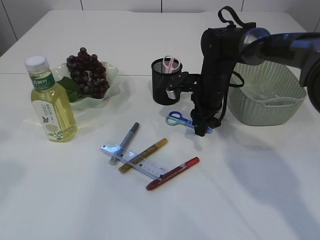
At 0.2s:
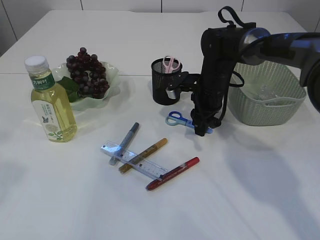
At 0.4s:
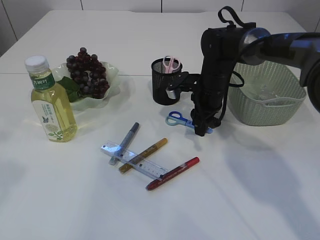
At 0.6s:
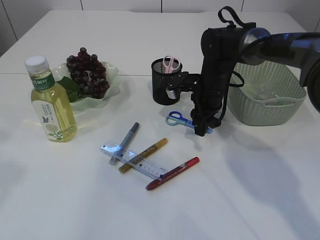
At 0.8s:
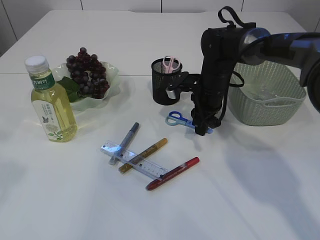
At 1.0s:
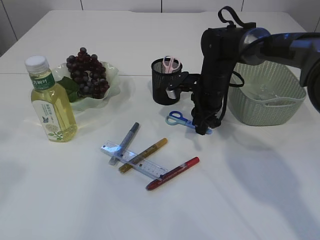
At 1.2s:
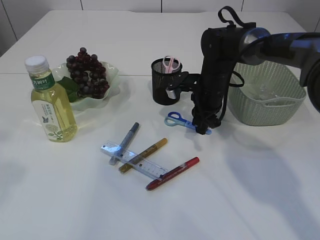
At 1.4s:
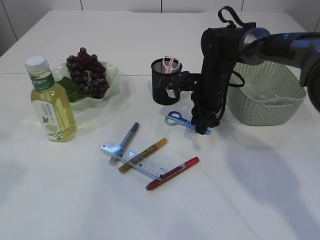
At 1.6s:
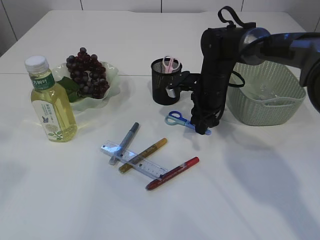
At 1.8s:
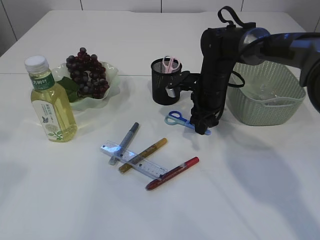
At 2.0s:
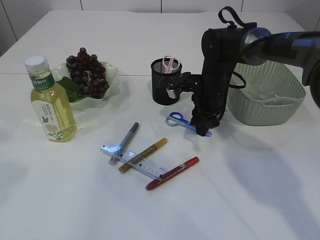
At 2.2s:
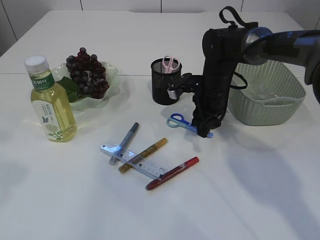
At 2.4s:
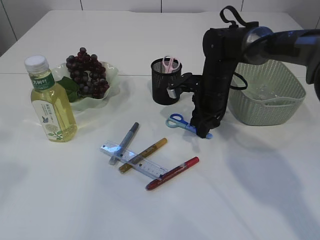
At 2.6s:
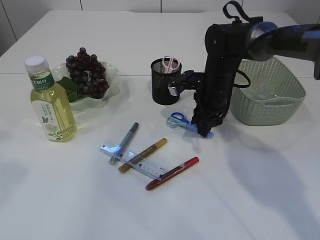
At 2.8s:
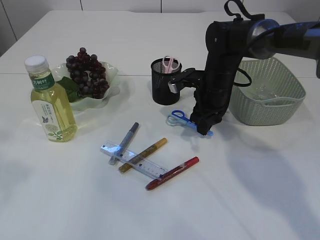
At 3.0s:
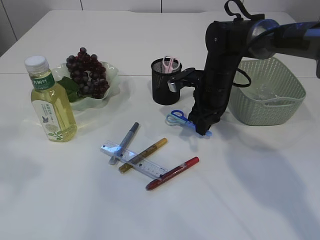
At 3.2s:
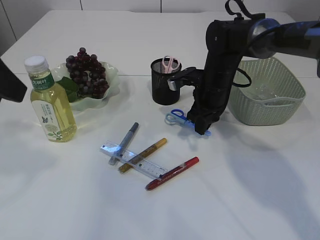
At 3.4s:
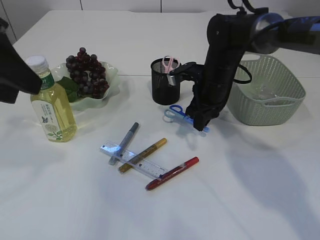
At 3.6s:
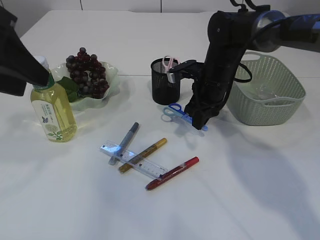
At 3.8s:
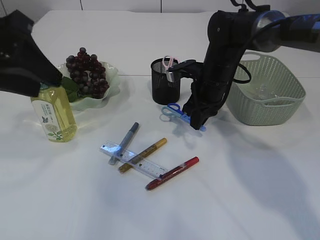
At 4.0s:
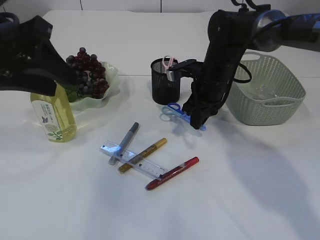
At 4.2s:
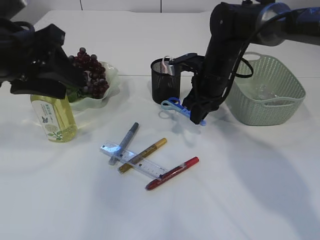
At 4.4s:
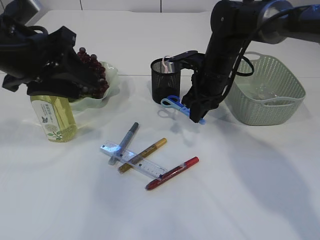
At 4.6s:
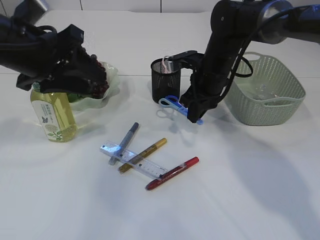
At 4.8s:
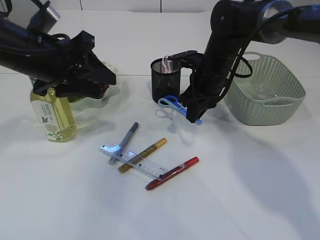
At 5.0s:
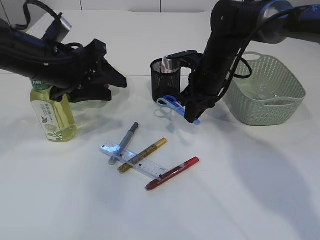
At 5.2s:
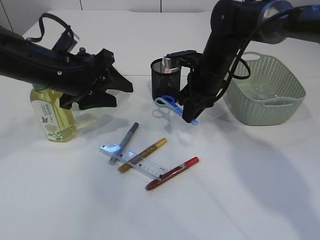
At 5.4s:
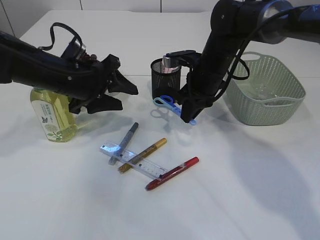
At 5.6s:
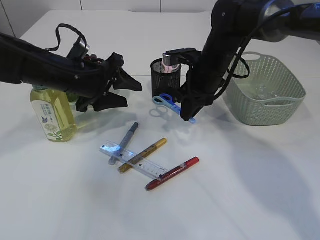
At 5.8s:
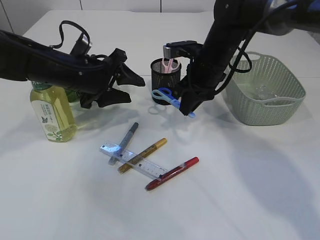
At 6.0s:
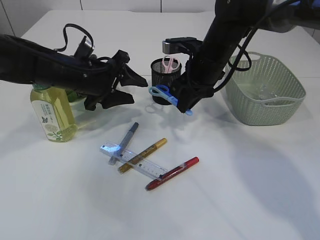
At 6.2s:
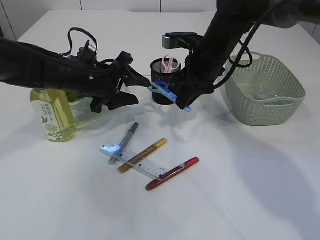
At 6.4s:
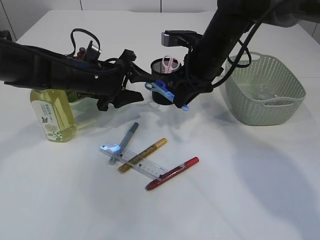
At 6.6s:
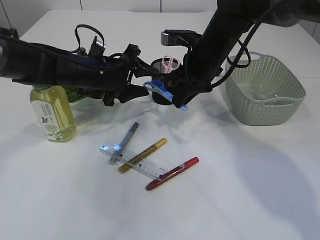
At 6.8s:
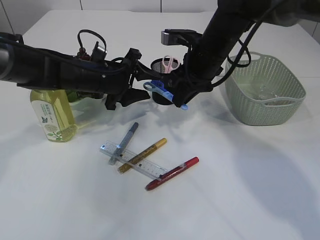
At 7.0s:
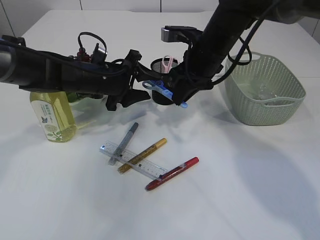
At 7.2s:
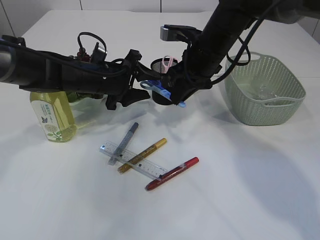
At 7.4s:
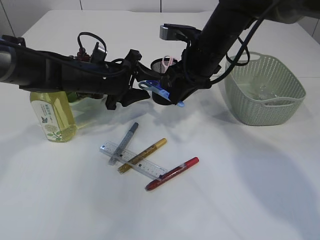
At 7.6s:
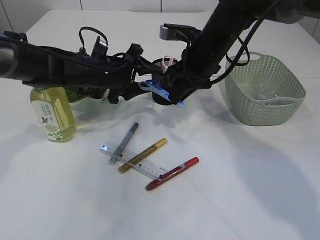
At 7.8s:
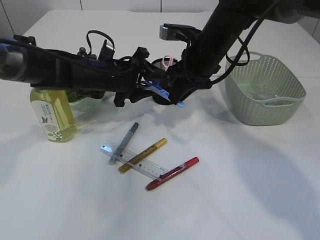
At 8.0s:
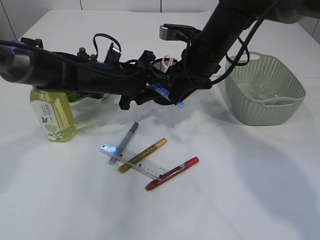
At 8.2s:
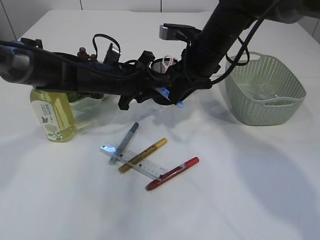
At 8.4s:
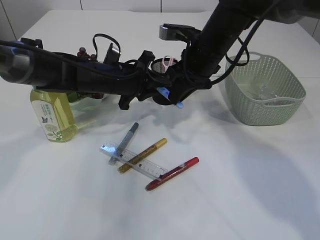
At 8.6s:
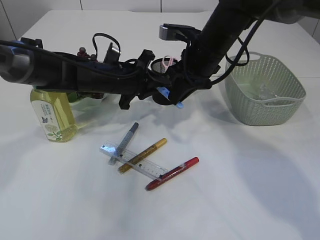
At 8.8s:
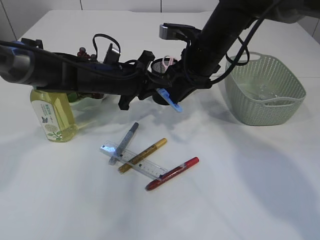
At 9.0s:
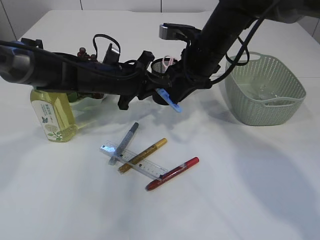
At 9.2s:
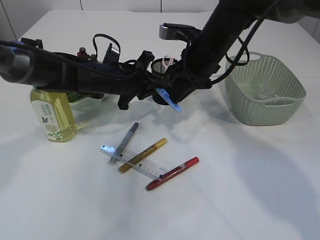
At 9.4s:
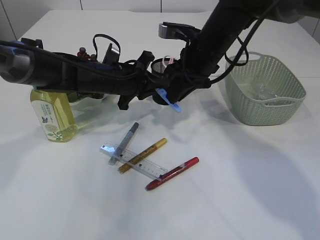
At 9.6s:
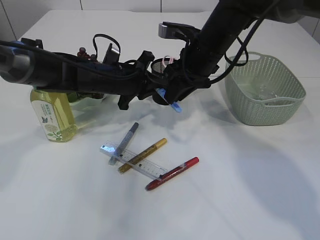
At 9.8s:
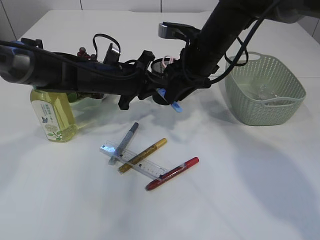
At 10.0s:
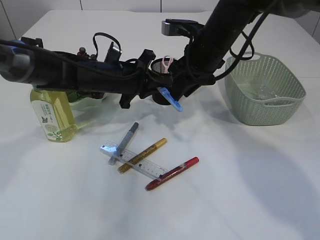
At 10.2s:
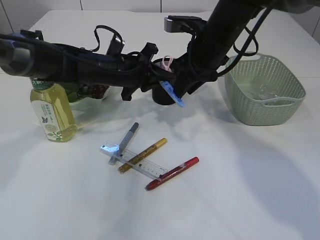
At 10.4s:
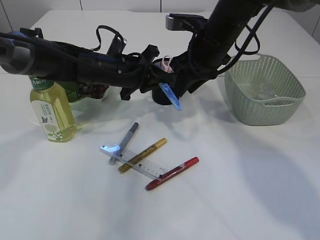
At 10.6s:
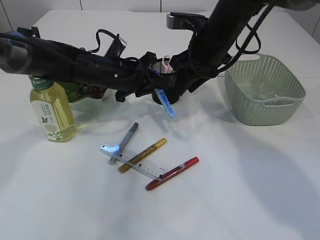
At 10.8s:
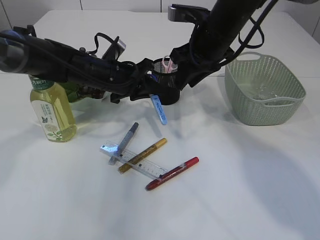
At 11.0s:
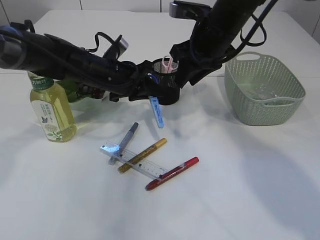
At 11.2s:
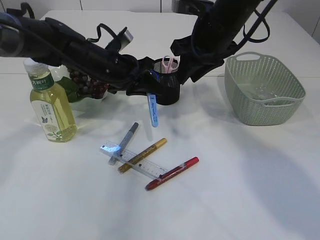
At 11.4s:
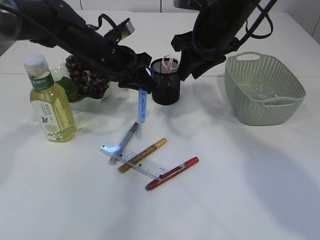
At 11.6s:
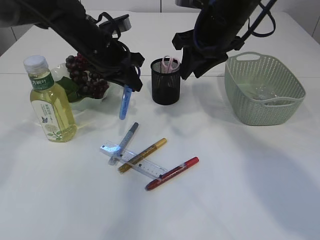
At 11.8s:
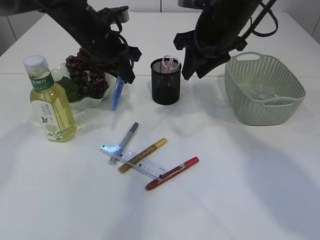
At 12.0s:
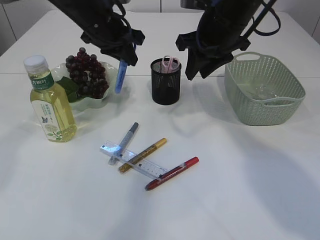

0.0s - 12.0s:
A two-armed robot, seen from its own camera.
Step, 0.0s - 4.2s: pick up the blue scissors.
Step, 4.4s - 11.2s: Hand over the blue scissors.
0.0s - 1.6s: Both grippers stay about where they are.
1.6s - 3.0s: The grippers stay close to where they were, moving slightly.
3.0s - 4.4s: The left gripper goes about 15 cm forward and downward.
4.4s - 6.0s: The left gripper heads downward and forward, covering approximately 15 cm.
6.0s - 7.6s: The grippers move only a little.
7.6s - 9.0s: The left gripper closes up.
9.0s - 10.4s: The right gripper opens.
10.4s - 12.0s: The left gripper is displaced upward by some 10 cm.

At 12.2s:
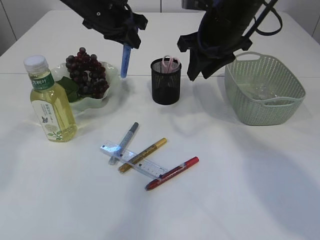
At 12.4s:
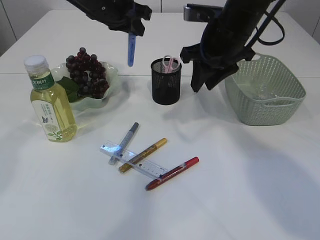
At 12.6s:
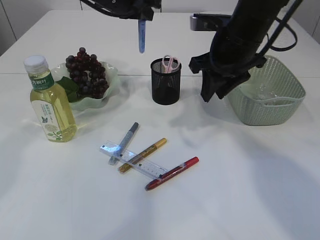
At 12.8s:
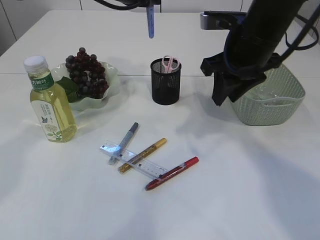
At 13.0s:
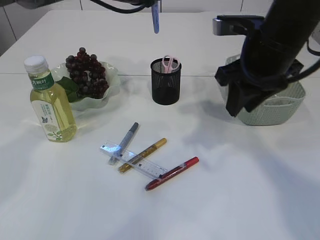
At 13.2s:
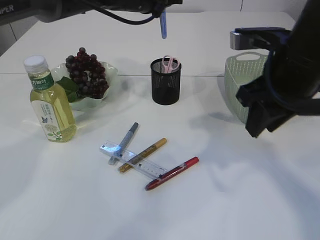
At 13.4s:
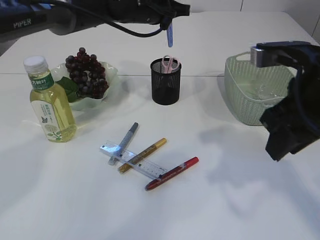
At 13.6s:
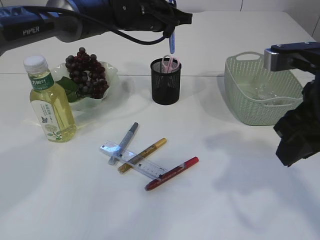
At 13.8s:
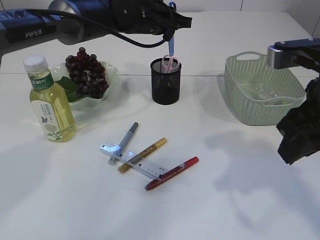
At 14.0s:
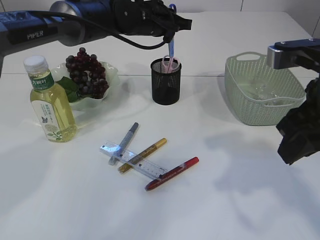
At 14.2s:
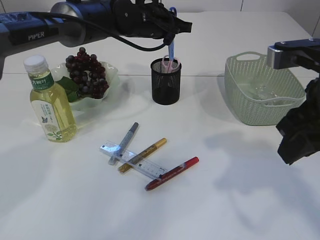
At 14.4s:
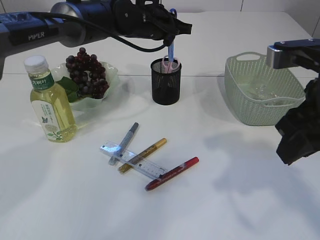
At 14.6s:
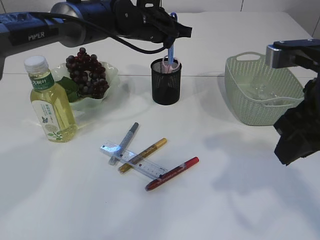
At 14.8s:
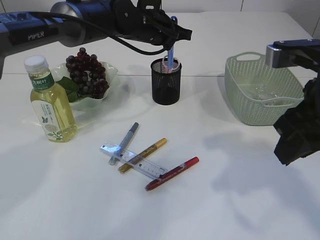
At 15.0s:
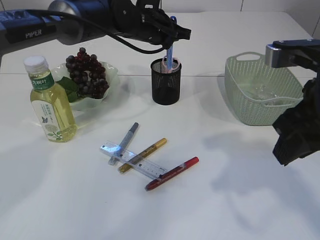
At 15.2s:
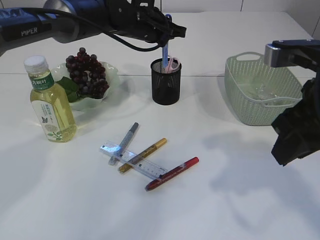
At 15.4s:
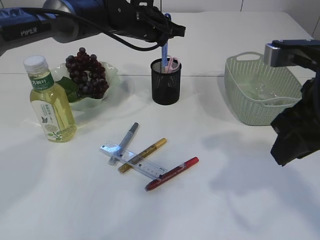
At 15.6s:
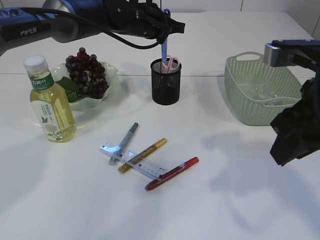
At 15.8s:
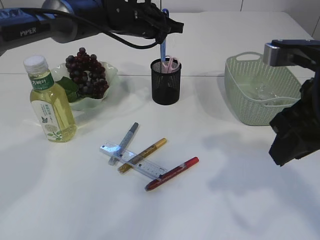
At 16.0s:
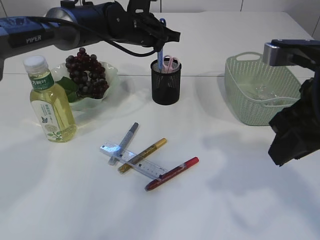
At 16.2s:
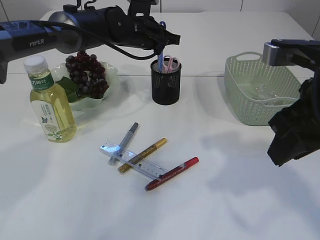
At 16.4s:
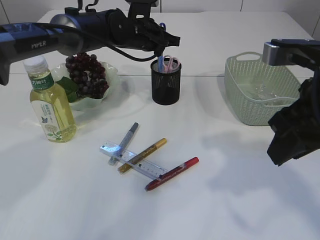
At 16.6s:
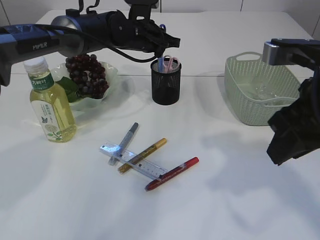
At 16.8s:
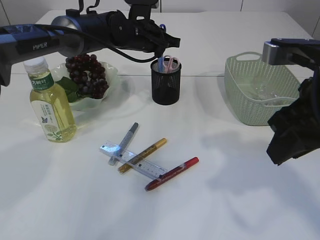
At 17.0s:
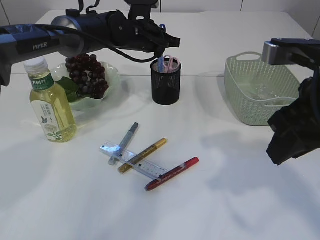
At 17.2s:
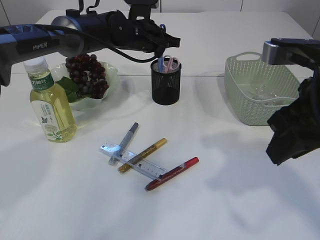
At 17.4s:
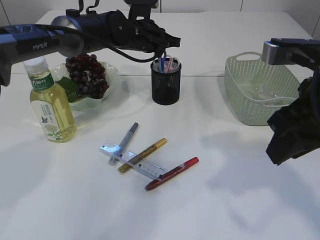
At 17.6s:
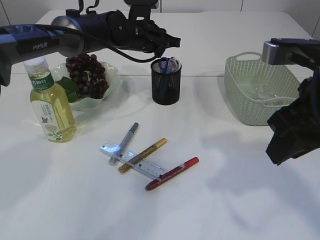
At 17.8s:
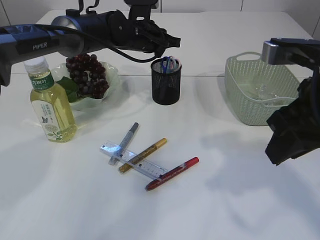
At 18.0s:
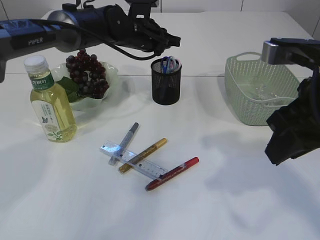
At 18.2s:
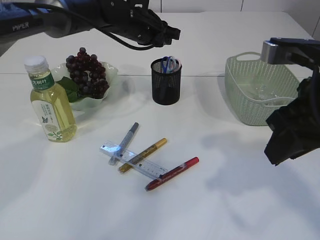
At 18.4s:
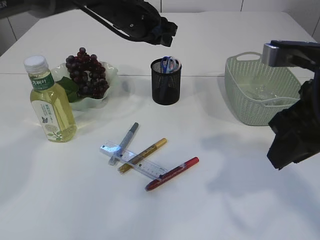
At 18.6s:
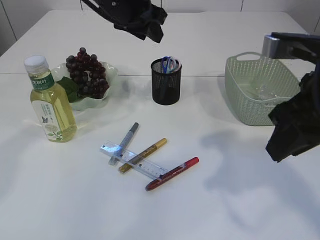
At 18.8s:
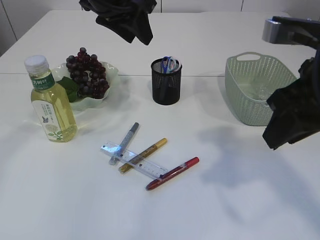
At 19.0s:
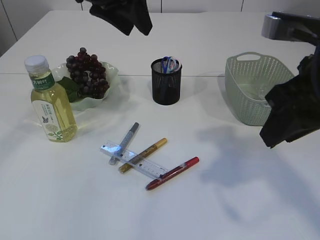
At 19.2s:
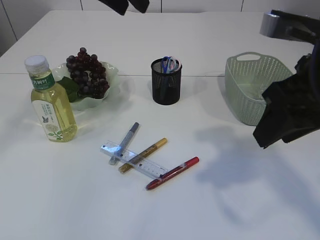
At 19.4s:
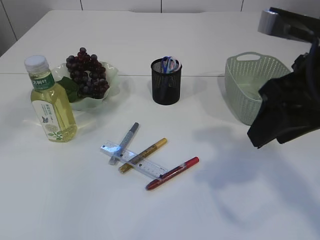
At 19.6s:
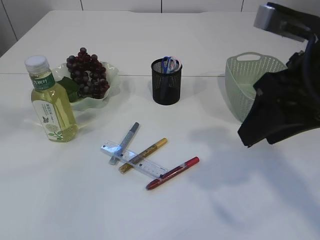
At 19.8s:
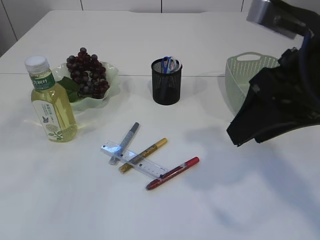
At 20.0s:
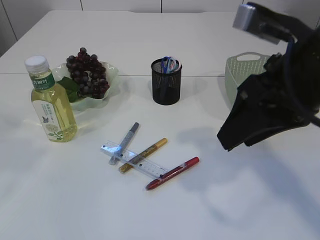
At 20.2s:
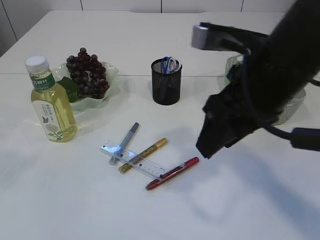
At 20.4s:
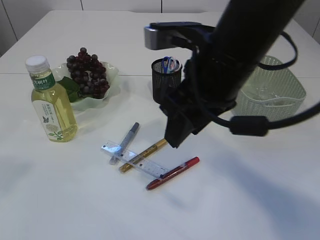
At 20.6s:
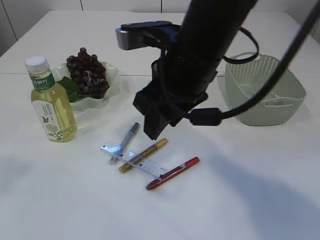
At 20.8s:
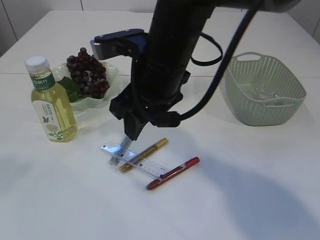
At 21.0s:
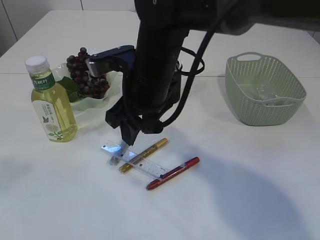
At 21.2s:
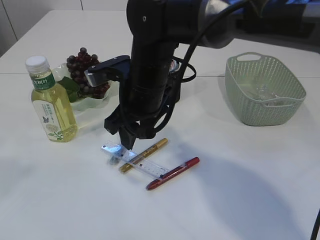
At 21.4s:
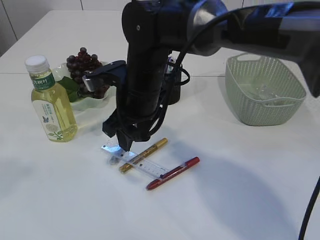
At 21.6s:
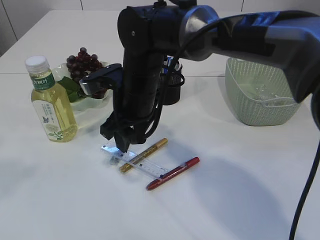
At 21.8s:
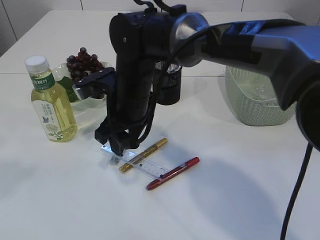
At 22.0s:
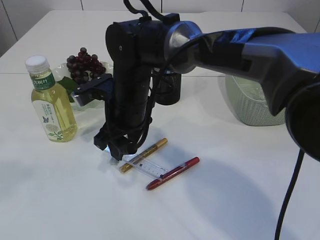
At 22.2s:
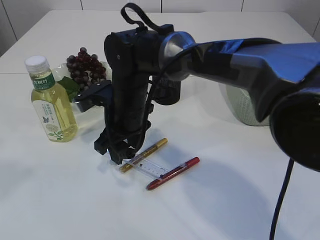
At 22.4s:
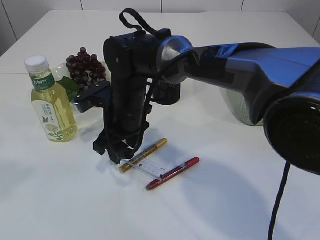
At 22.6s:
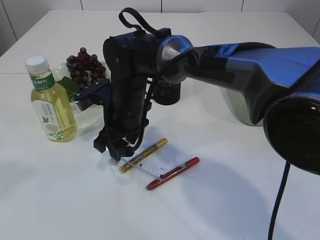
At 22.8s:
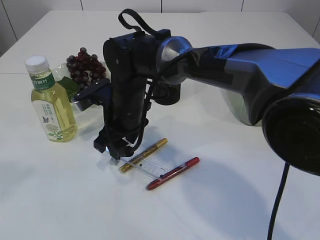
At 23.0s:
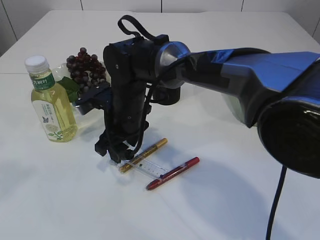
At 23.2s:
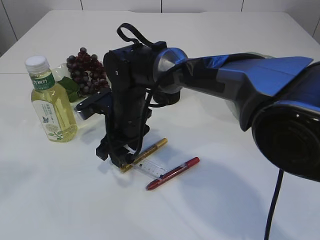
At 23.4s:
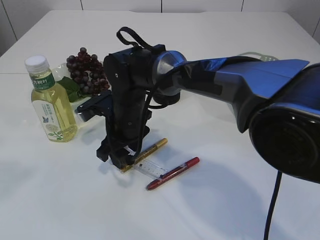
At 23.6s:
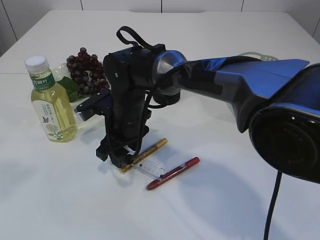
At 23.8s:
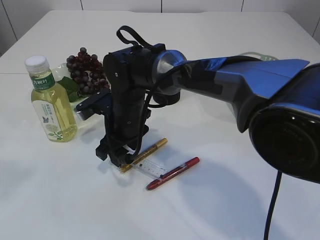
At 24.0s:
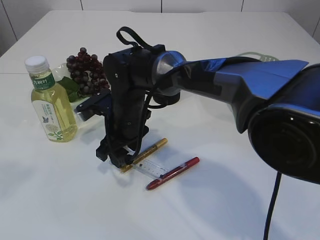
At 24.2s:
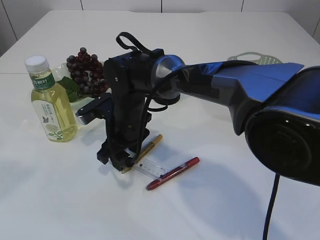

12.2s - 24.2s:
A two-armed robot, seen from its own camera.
Step, 12.2s - 18.2s: Place the blue scissors into the pen holder.
12.2s - 13.8s: The right gripper heads backward, covering roughly 20 cm, while the left gripper moves to the right, some 10 cm.
13.8s - 18.2s: The grippers stay close to where they were, moving slightly.
18.2s - 19.8s: The left gripper goes about 40 cm backward, upward and to the left.
19.8s - 21.2s: The left gripper is displaced backward by about 10 cm. Meanwhile the right gripper goes approximately 25 cm to the left, forward and downward.
21.2s - 22.6s: The right gripper heads downward, covering approximately 5 cm.
22.6s - 24.2s: There are only small adjustments of the grippers.
